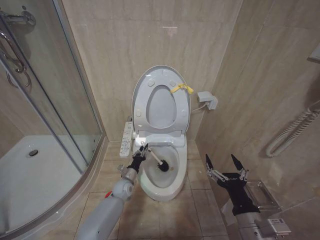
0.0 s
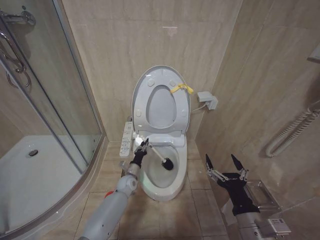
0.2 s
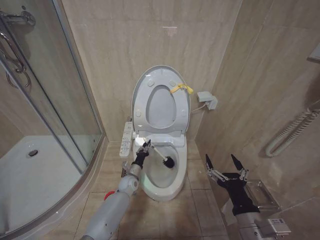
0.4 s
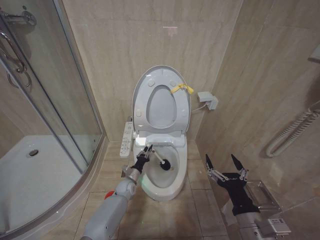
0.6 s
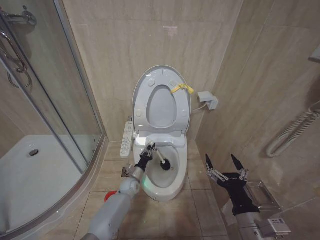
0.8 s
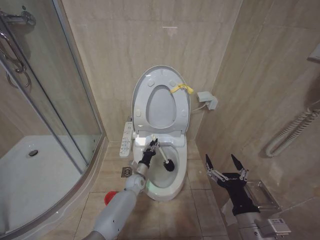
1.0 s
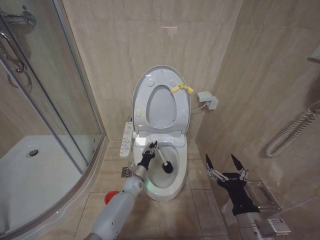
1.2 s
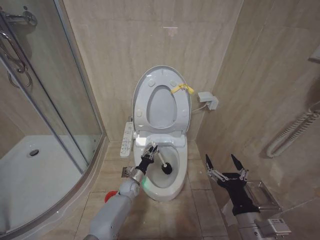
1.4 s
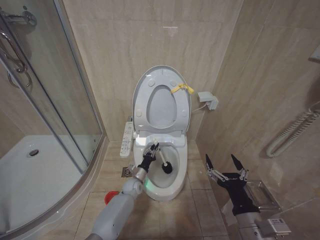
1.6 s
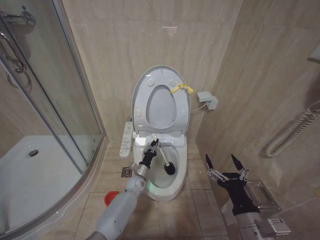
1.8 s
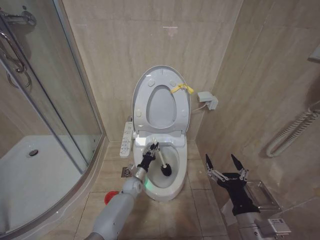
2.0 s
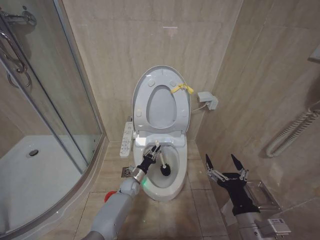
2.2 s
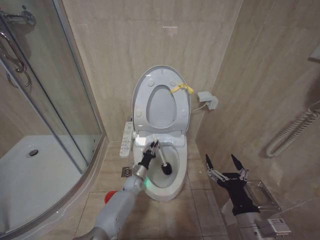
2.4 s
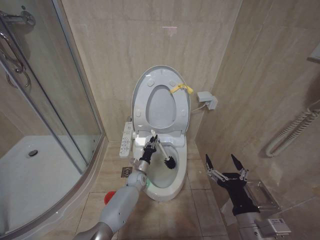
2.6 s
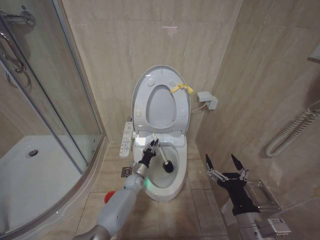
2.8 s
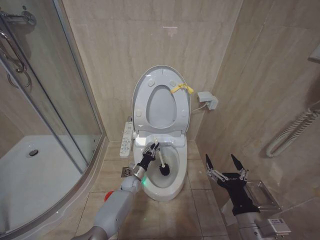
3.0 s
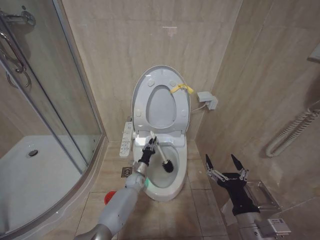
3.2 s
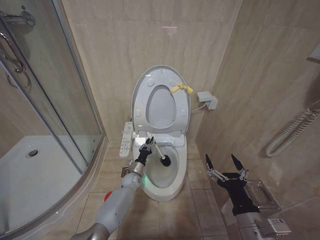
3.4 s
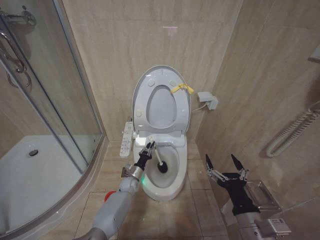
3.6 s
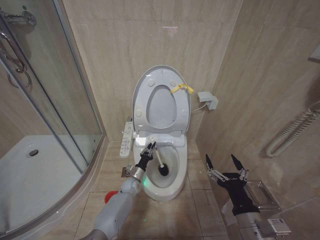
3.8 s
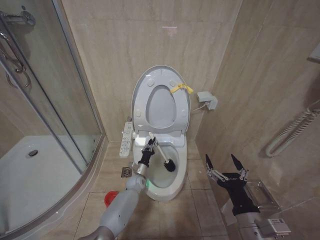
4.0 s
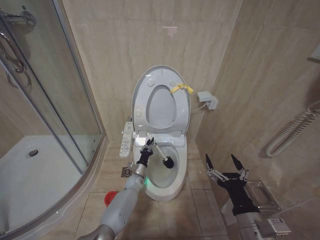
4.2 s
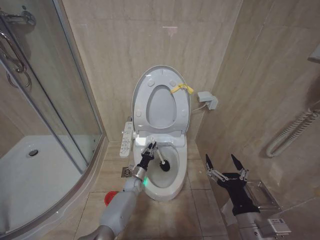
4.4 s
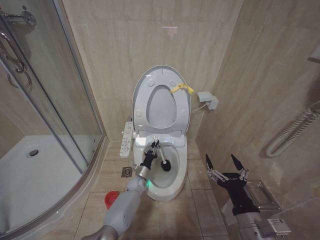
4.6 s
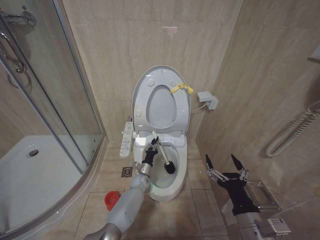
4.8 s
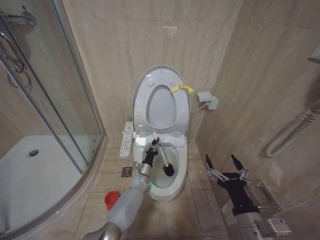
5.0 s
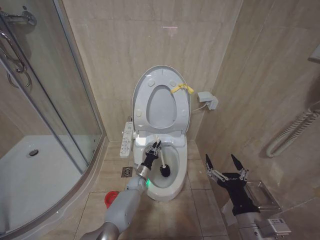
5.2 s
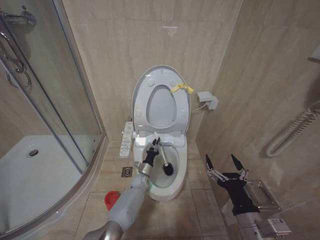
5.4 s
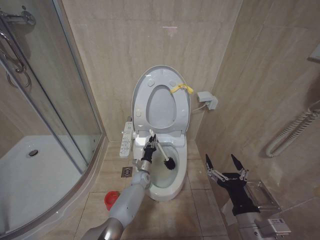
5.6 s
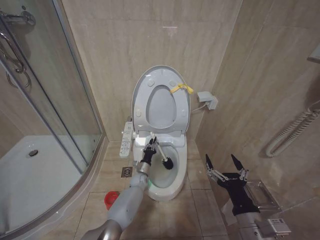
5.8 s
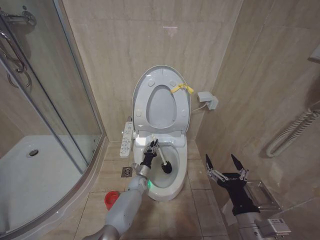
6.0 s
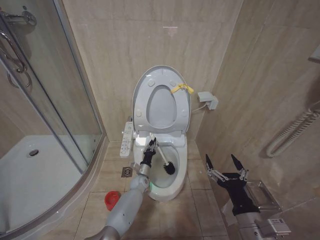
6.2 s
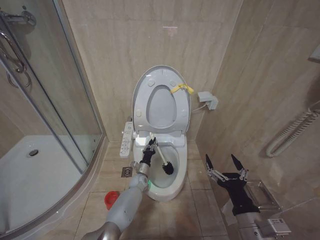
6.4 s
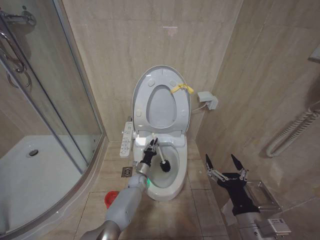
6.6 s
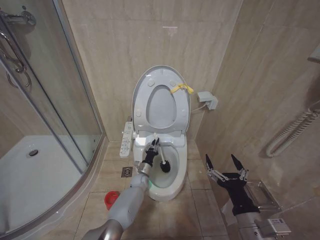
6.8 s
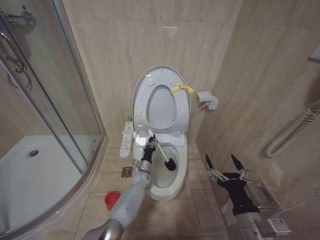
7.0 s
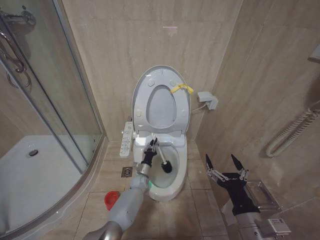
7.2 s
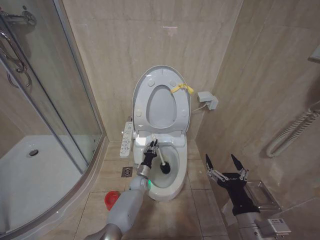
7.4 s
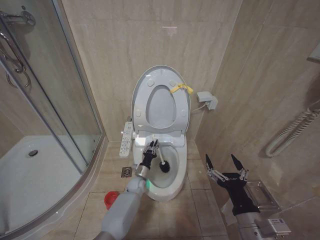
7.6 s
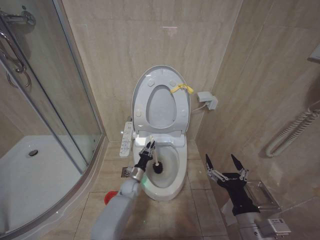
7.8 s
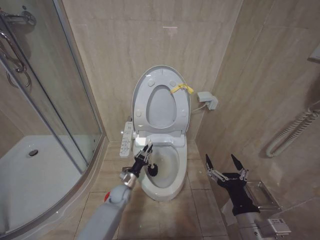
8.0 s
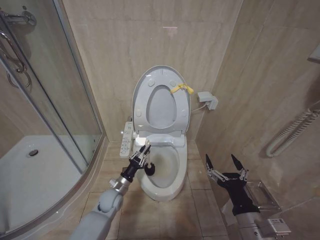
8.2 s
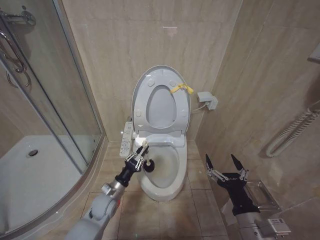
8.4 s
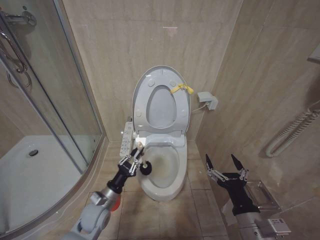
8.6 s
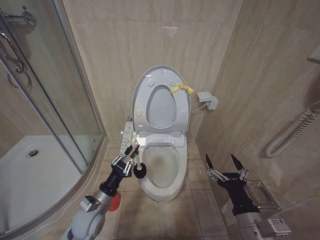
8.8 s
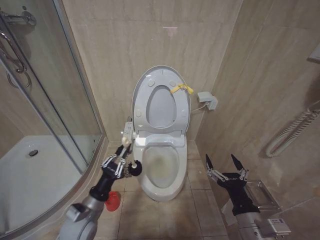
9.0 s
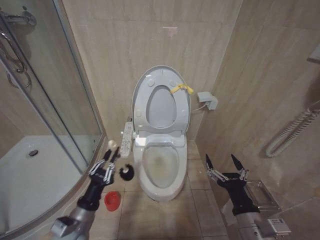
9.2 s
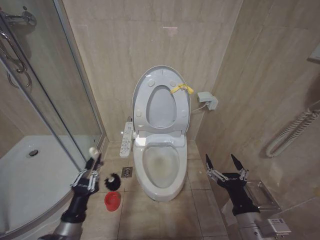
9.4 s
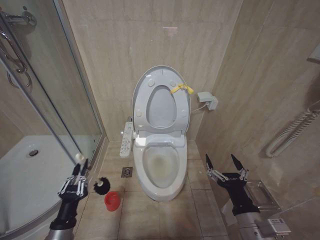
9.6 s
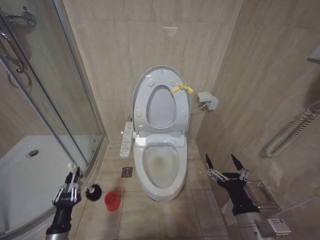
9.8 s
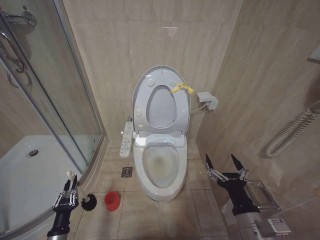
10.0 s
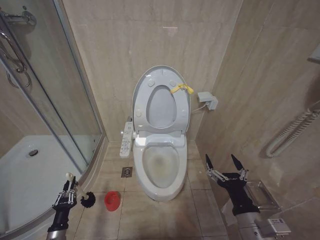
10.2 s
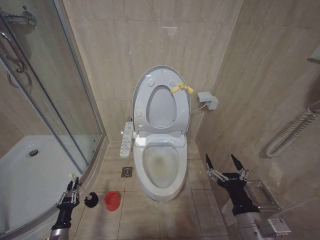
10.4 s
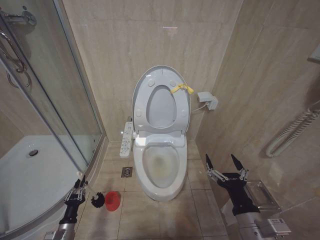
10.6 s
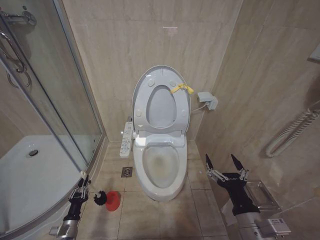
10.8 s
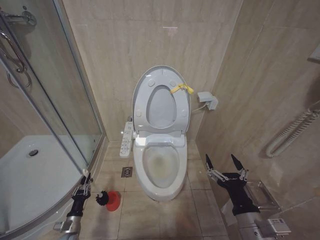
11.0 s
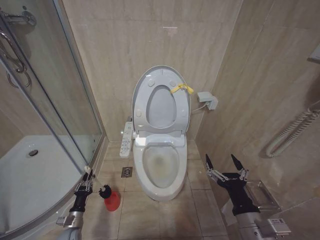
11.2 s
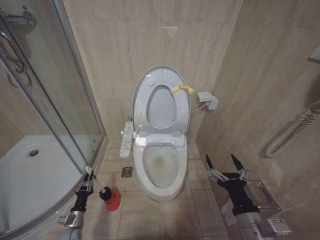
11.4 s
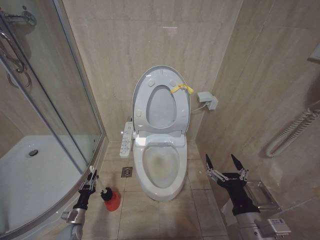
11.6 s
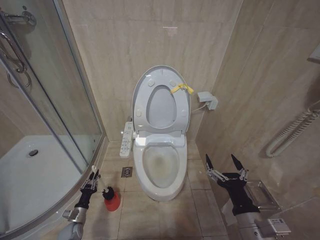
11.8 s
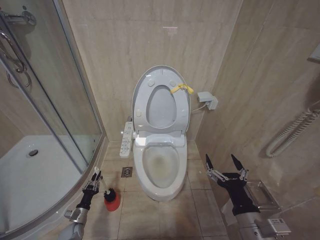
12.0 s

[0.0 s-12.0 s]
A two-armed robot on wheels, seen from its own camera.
Task of the whole recording: Open the toilet lid, clean the toilet bowl with a toilet brush, close the toilet lid, and flush.
1.6 to 3.0 s: The grippers stay close to where they were, moving slightly.
4.4 to 6.0 s: The grippers stay close to where they were, moving slightly.
7.6 to 9.0 s: The left gripper heads backward, upward and to the left, covering about 30 cm.
9.0 to 10.4 s: The left gripper heads downward and to the left, covering about 25 cm.
10.4 to 12.0 s: The left gripper goes roughly 15 cm forward and downward.

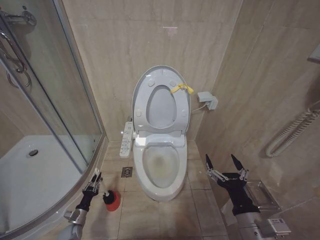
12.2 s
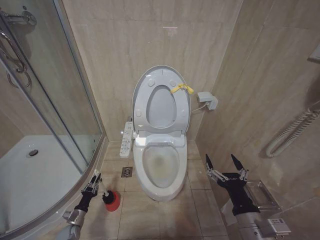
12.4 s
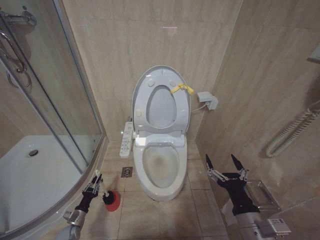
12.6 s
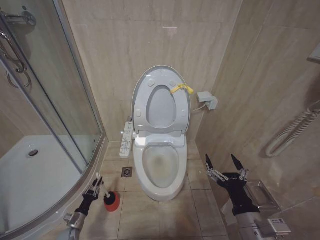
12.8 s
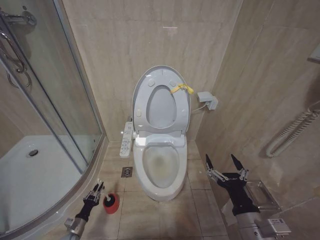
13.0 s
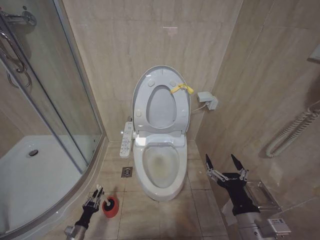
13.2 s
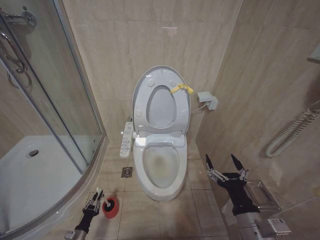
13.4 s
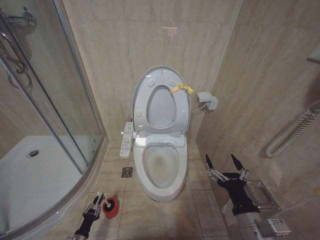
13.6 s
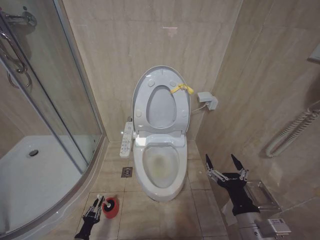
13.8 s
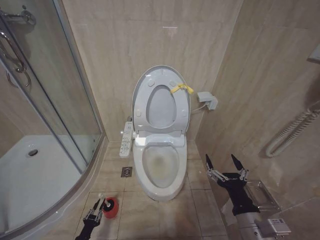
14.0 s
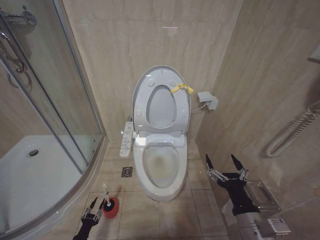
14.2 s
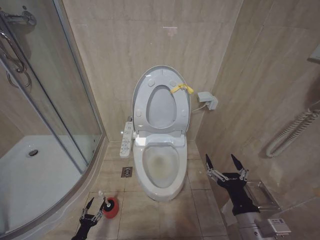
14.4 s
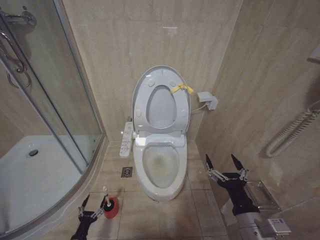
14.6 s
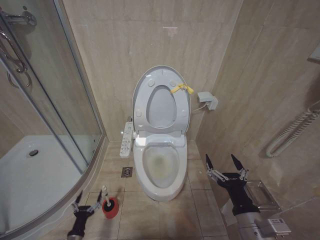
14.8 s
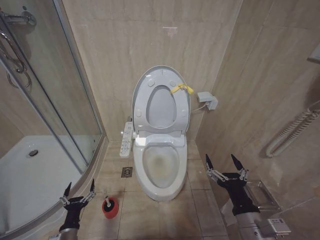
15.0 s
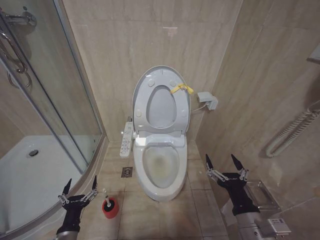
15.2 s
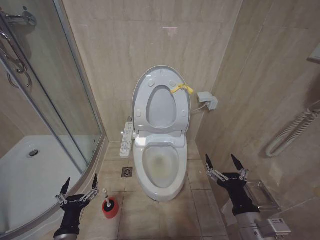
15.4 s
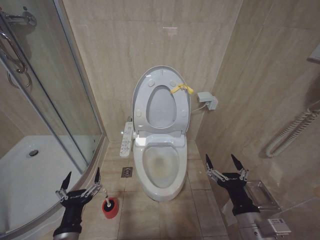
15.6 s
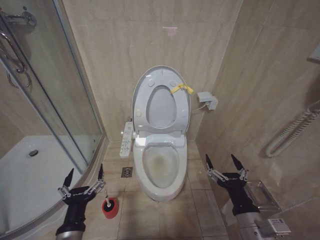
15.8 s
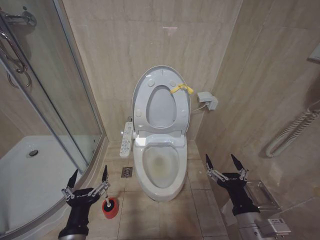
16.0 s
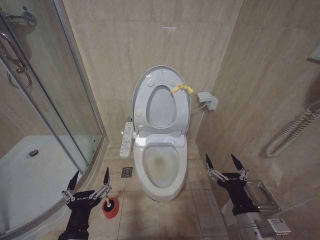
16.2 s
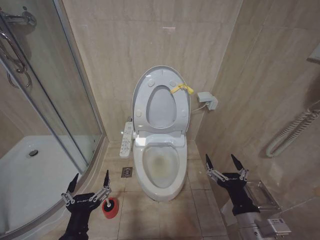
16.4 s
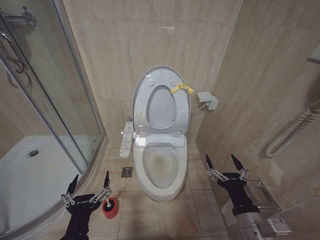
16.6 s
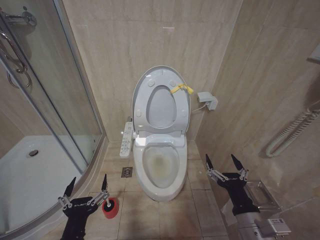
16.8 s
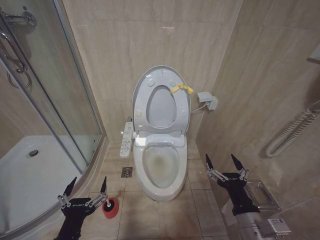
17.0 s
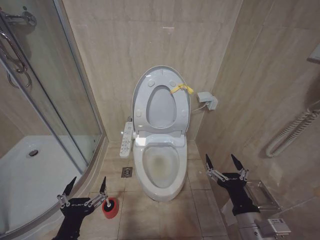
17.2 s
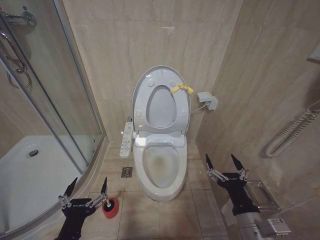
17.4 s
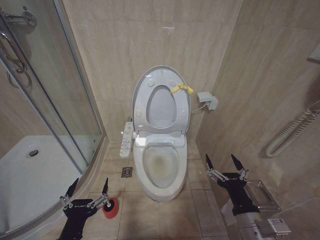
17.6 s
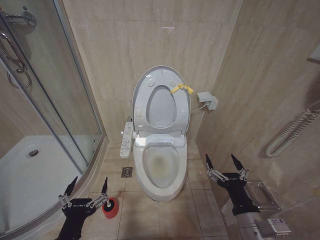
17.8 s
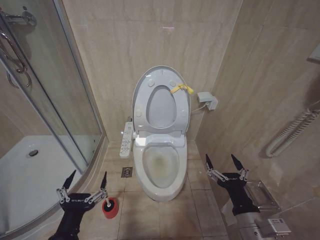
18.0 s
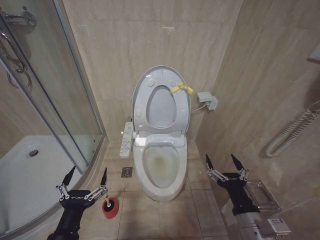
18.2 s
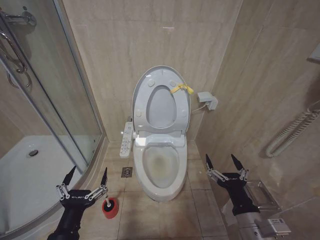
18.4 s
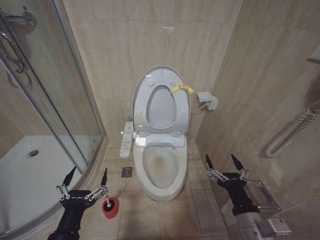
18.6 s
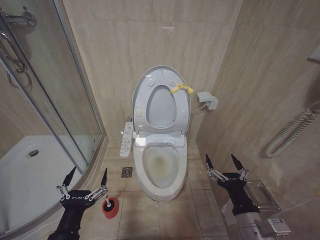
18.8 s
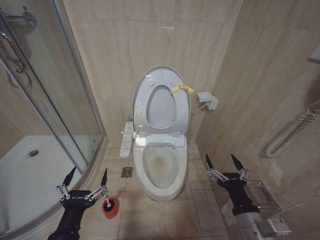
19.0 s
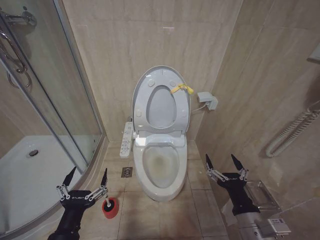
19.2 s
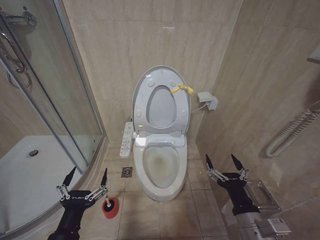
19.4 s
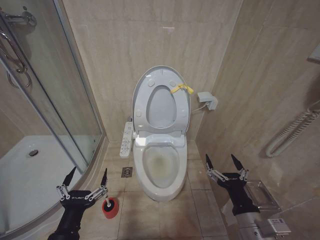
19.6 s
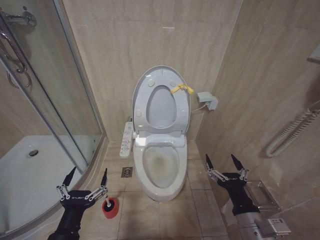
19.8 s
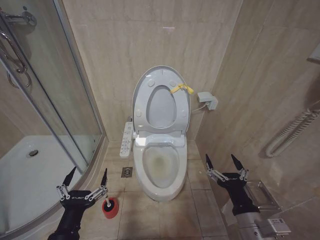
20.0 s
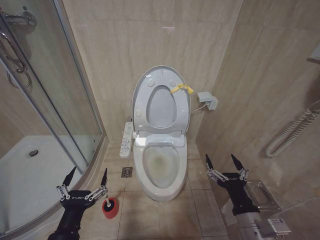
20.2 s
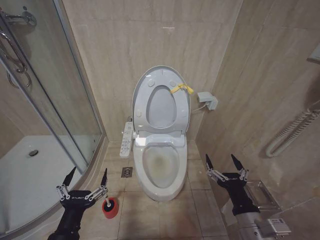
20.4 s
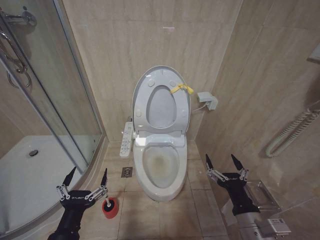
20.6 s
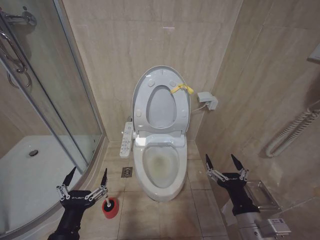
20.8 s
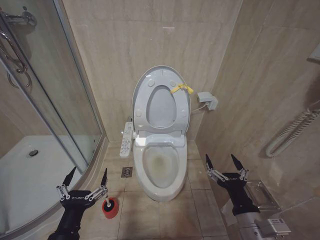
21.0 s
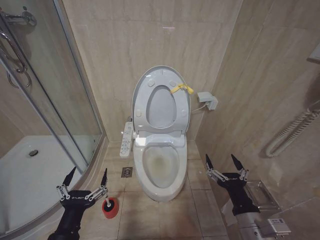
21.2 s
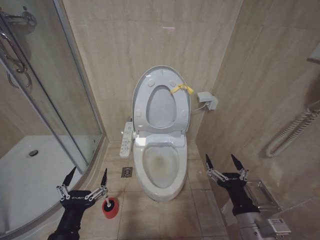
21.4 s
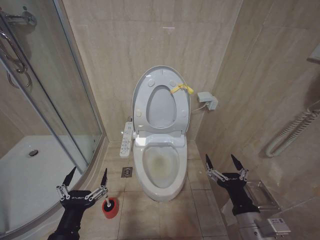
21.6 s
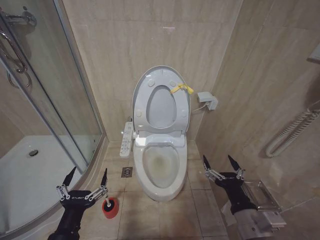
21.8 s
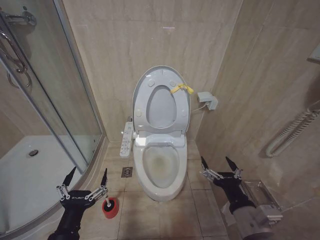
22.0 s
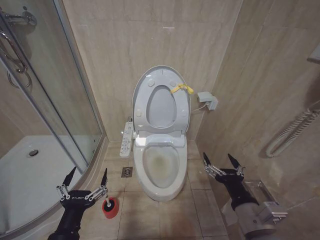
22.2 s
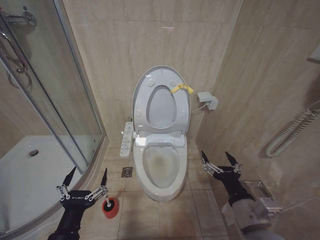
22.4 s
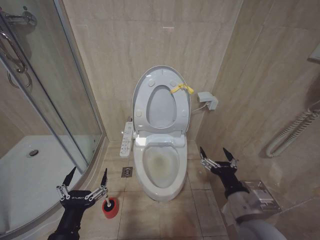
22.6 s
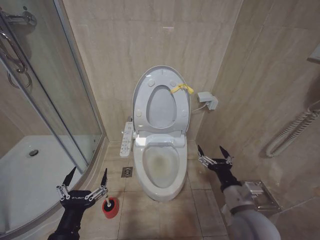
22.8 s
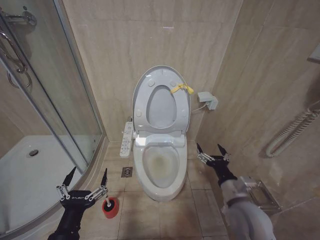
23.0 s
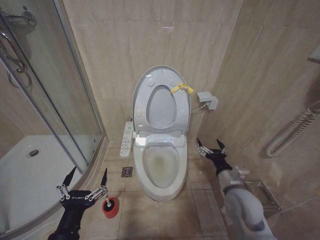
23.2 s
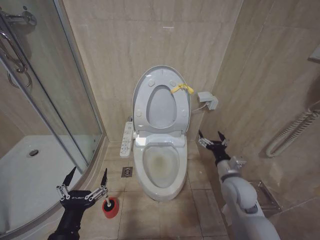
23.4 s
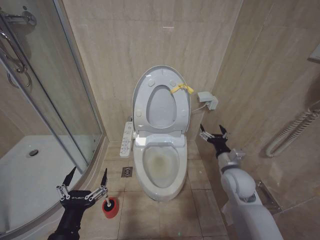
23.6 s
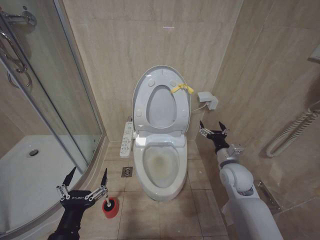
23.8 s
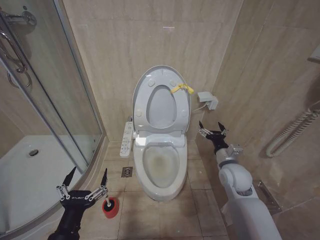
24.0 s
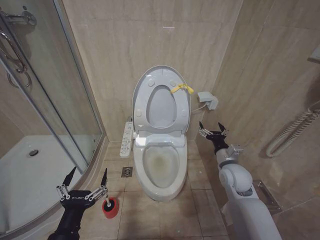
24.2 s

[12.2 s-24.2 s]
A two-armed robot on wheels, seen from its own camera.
Task of the whole recording: Open the toilet lid, clean the toilet bowl with a toilet brush, close the toilet lid, and flush.
12.2 to 13.8 s: The left gripper travels backward and downward by approximately 10 cm.
13.8 to 15.2 s: The left gripper shifts some 25 cm upward, and opens.
15.2 to 16.6 s: The left gripper heads upward, to the right and backward, covering about 20 cm.
16.6 to 18.2 s: The grippers stay close to where they were, moving slightly.
18.2 to 21.2 s: Both grippers stay about where they are.
21.2 to 22.6 s: The grippers make only small movements.
22.6 to 24.2 s: The right gripper heads forward, covering some 20 cm.
